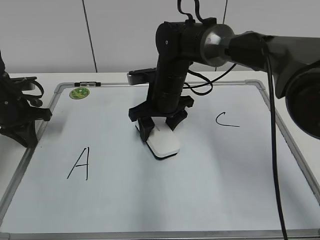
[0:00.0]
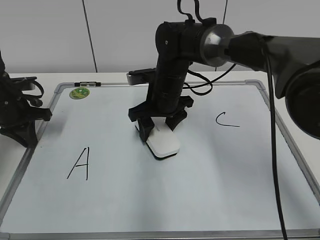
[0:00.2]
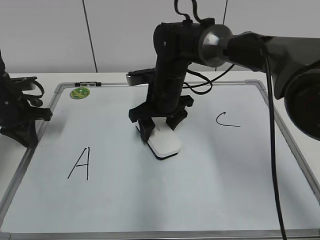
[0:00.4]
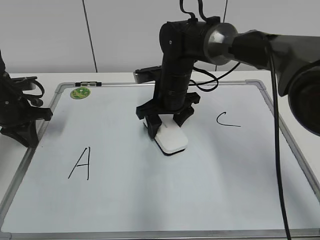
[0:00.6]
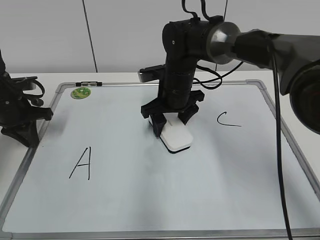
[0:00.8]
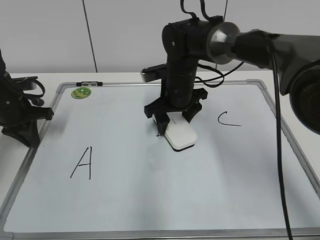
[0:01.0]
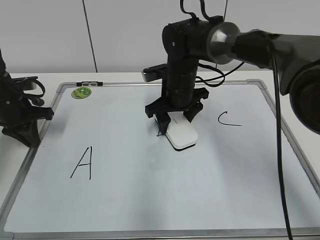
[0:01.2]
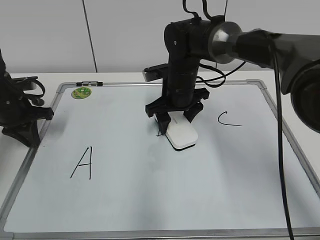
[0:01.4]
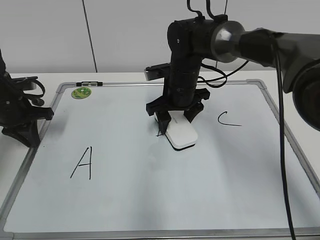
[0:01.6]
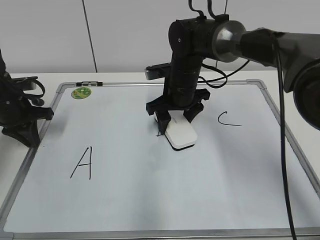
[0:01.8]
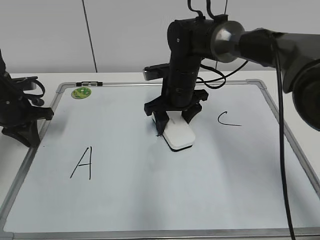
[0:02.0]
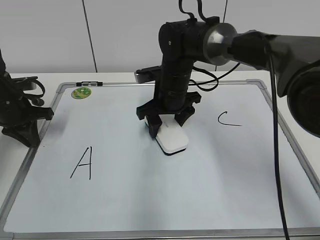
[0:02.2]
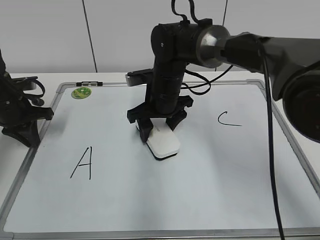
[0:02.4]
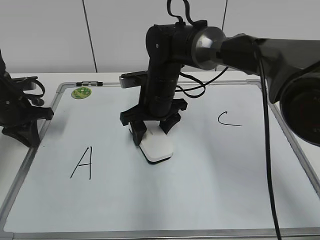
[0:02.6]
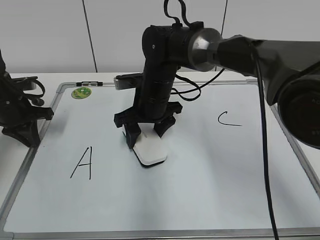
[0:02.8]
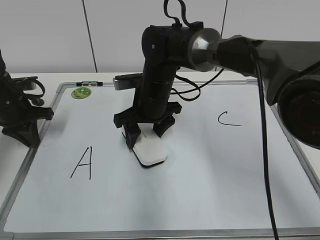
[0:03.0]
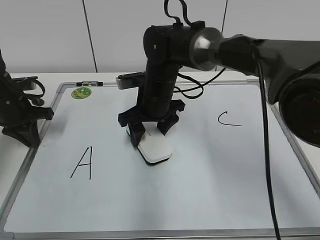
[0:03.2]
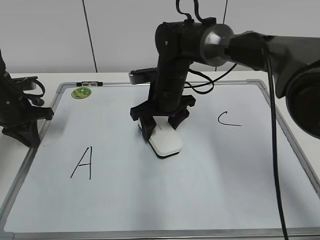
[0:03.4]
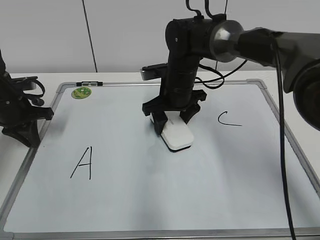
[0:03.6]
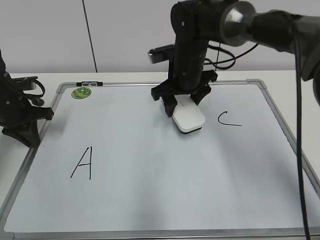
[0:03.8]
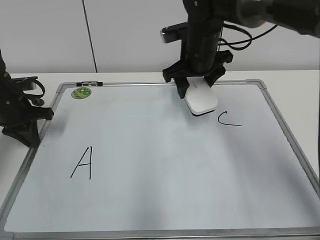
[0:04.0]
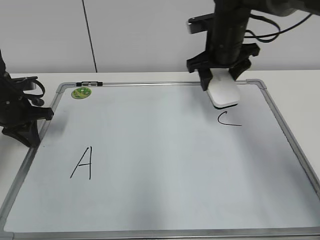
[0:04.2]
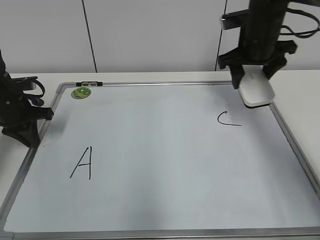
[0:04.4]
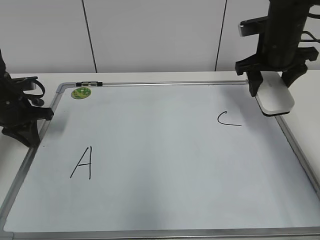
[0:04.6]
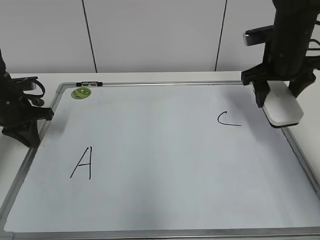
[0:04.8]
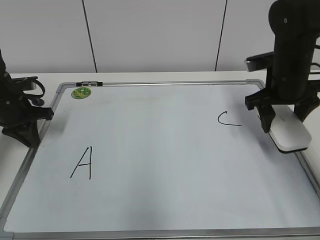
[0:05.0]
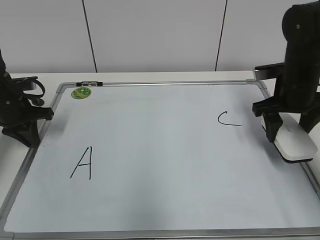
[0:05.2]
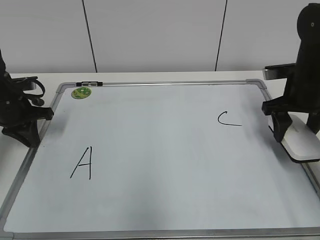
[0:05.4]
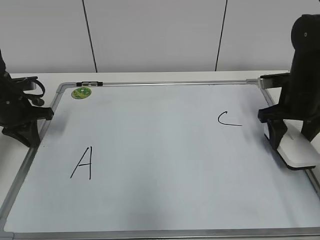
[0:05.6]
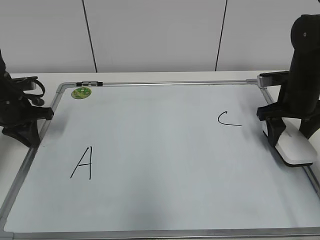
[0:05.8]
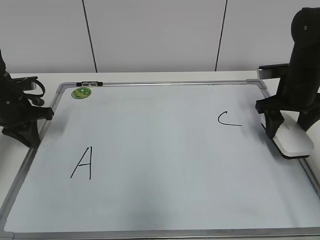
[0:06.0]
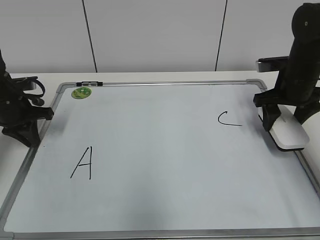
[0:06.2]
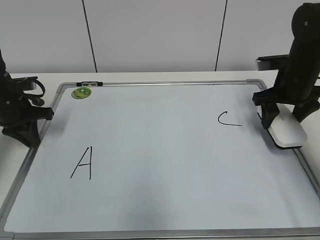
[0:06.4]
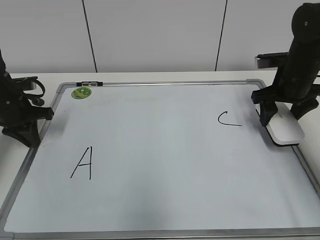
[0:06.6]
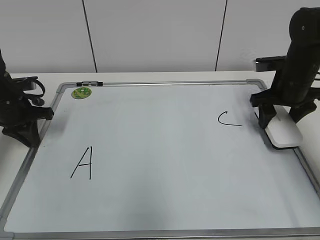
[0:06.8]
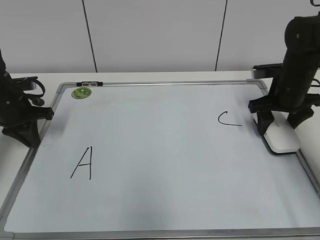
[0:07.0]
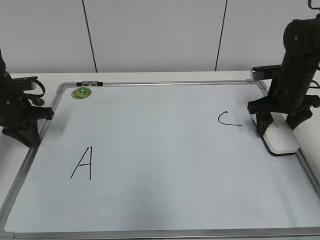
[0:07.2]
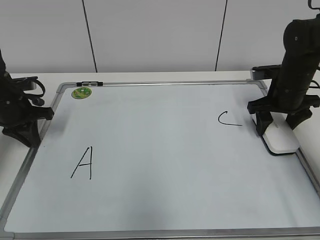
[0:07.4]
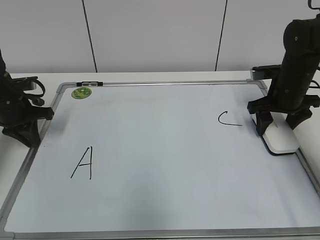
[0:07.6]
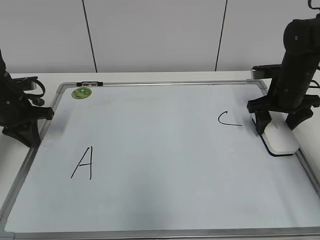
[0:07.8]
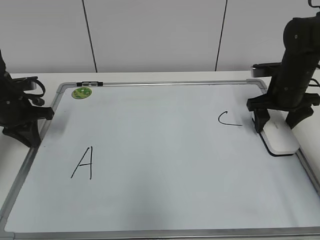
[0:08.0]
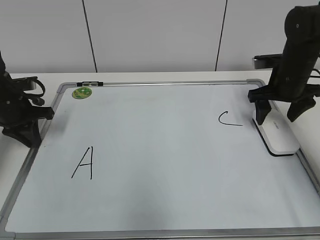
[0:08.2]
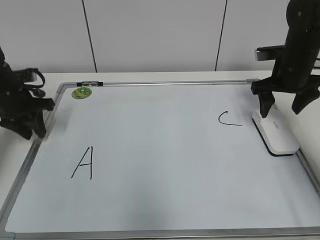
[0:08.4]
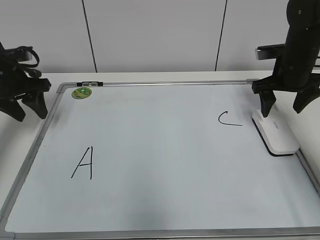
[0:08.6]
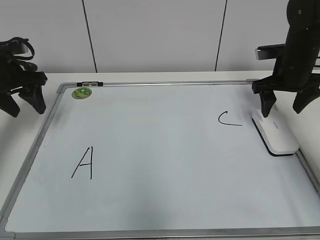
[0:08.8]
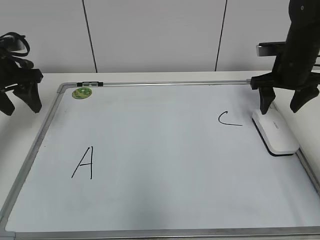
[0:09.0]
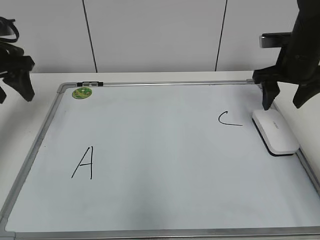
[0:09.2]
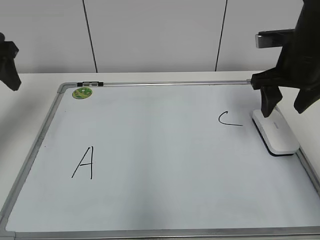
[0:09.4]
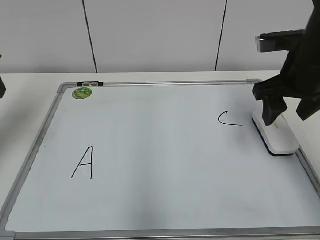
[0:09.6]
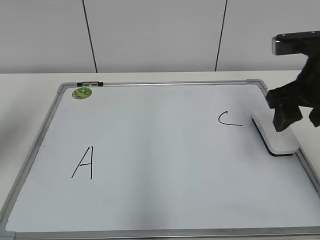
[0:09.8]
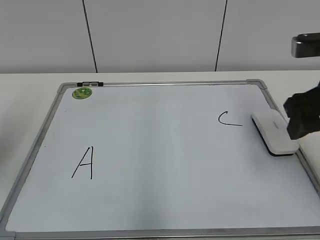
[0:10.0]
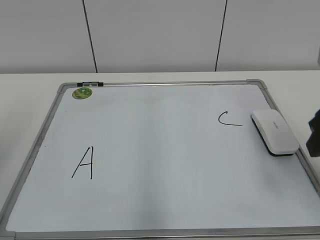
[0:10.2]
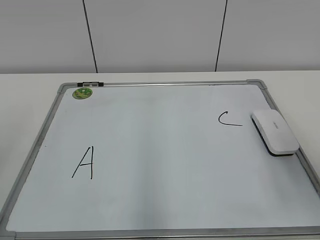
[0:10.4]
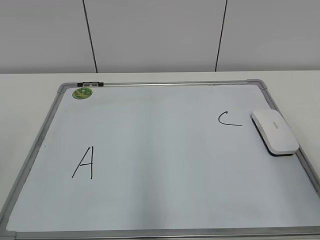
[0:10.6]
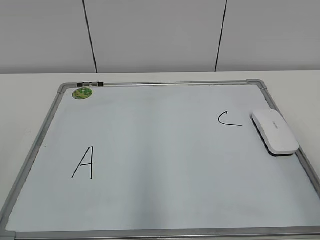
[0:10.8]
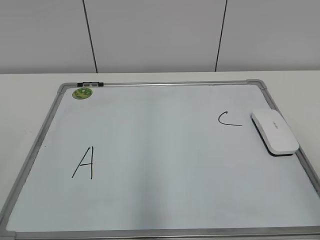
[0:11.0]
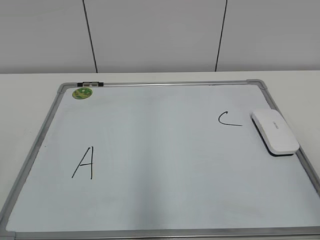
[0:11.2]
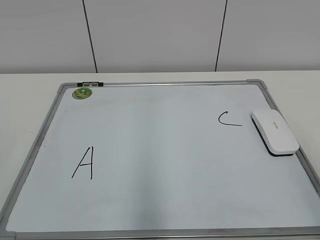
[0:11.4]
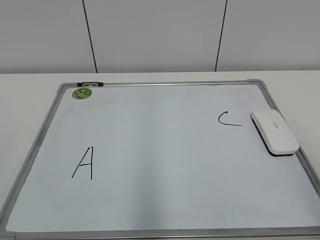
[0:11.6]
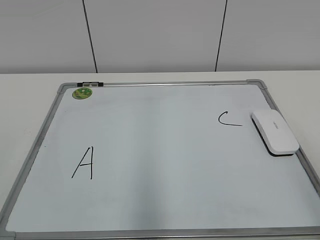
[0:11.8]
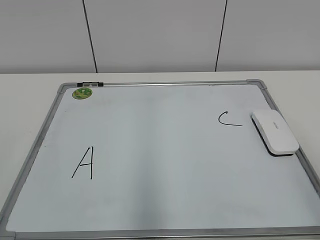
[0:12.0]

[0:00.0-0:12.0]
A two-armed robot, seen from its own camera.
Task of the whole recording: pick up the eraser on the blackboard and erase the letter "B".
Step, 0:00.0 to 0:03.2: Erase the letter B with your right hand.
Step, 0:03.6 to 0:07.6: Put down the eraser with your right hand.
0:00.0 to 0:01.6: The grippers make only small movements.
0:01.6 to 0:03.0: The right gripper travels to the left by about 5 cm.
0:03.0 to 0:04.4: The right gripper travels to the right and upward by roughly 20 cm.
0:04.4 to 0:06.0: The right gripper heads to the right and downward, covering approximately 10 cm.
0:06.0 to 0:07.6: The grippers move only a little.
0:07.6 to 0:09.0: The right gripper opens, then closes once more. Meanwhile the left gripper heads upward, covering roughly 10 cm, and opens.
0:09.0 to 0:10.4: The two grippers go approximately 30 cm backward.
0:10.4 to 0:12.0: The right gripper travels backward by about 10 cm.
